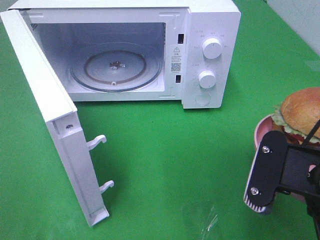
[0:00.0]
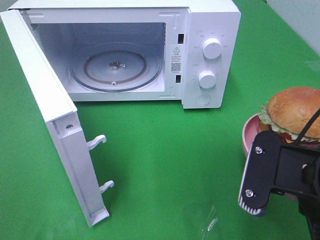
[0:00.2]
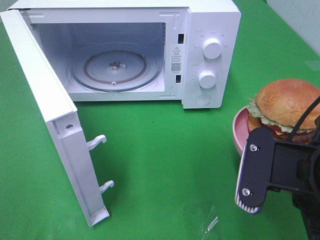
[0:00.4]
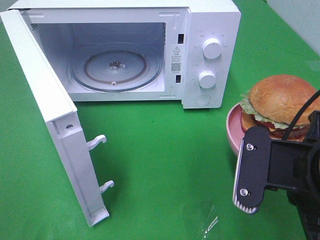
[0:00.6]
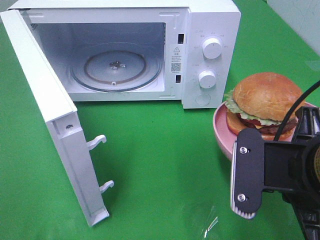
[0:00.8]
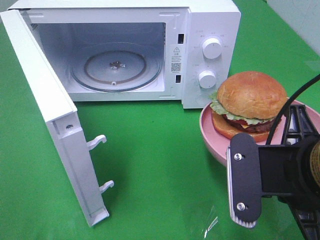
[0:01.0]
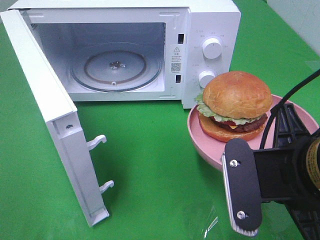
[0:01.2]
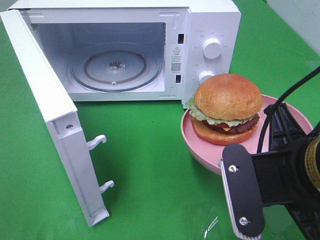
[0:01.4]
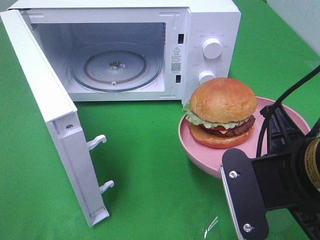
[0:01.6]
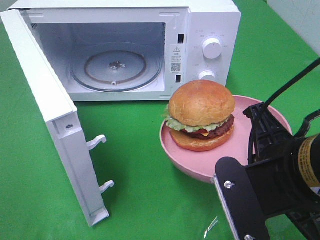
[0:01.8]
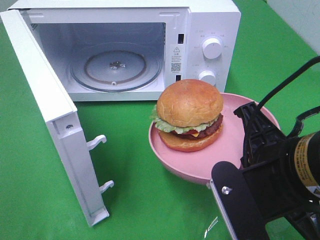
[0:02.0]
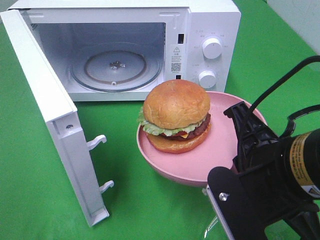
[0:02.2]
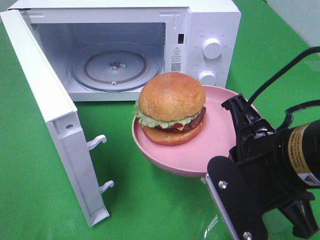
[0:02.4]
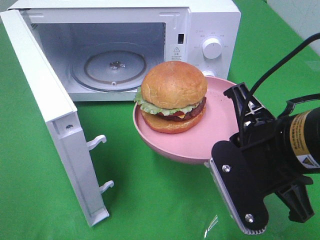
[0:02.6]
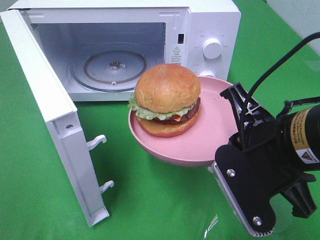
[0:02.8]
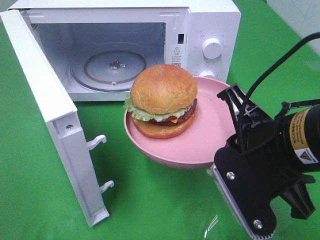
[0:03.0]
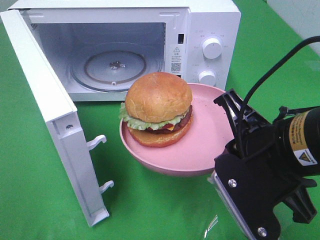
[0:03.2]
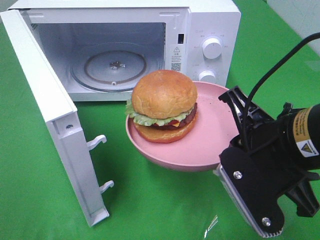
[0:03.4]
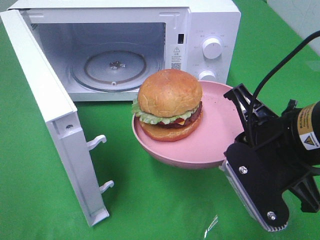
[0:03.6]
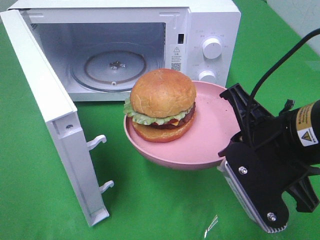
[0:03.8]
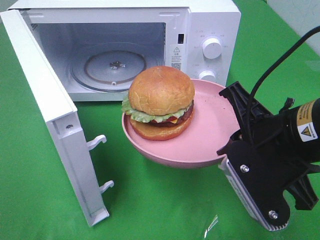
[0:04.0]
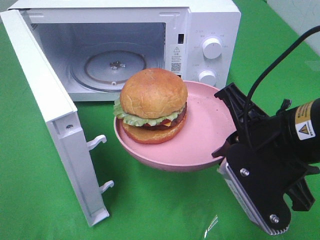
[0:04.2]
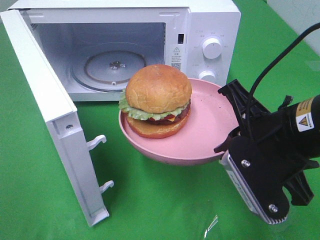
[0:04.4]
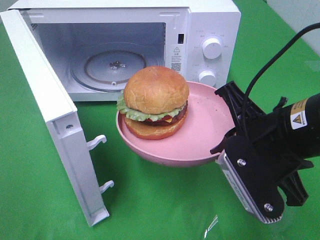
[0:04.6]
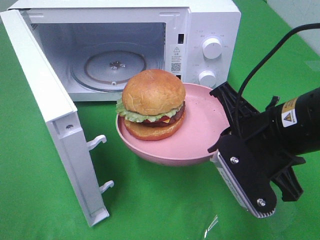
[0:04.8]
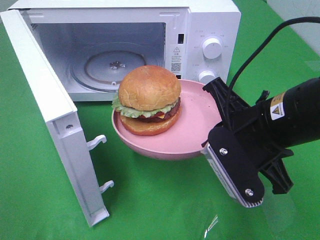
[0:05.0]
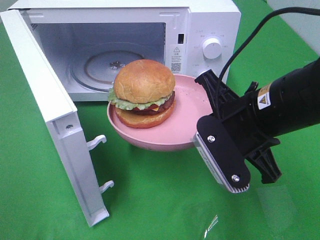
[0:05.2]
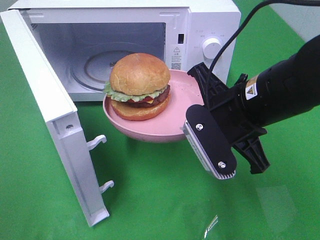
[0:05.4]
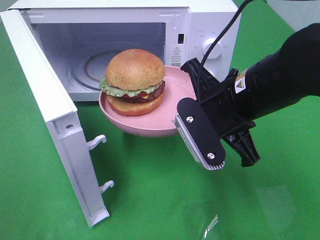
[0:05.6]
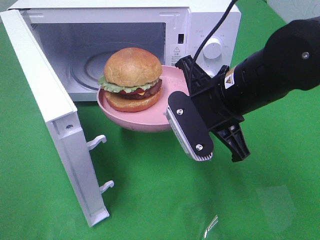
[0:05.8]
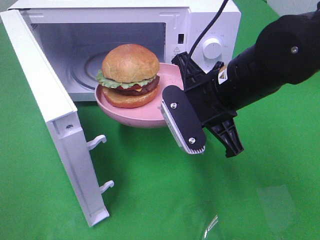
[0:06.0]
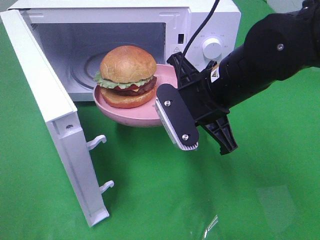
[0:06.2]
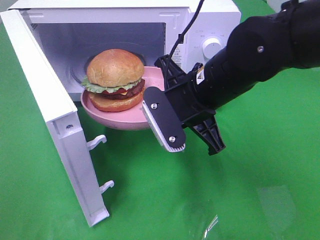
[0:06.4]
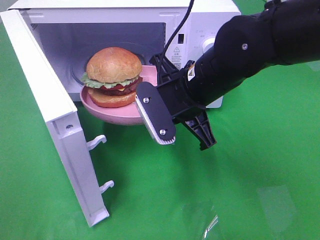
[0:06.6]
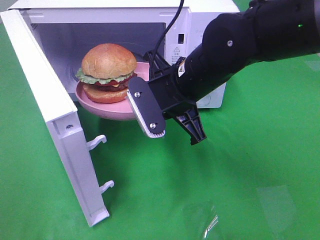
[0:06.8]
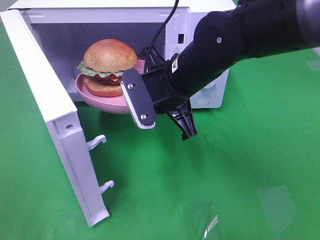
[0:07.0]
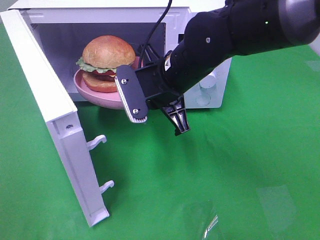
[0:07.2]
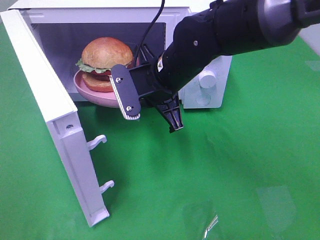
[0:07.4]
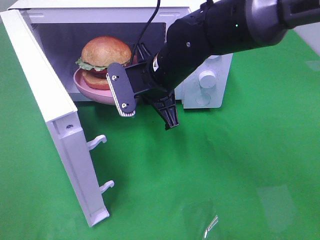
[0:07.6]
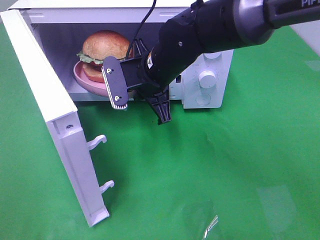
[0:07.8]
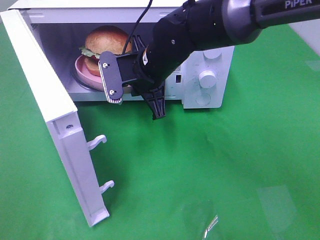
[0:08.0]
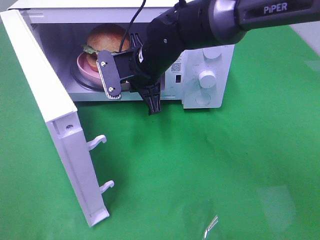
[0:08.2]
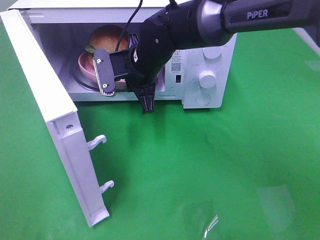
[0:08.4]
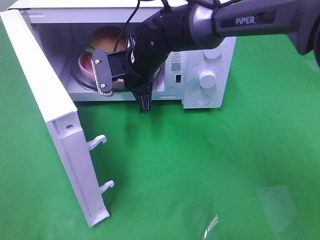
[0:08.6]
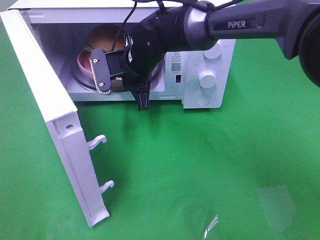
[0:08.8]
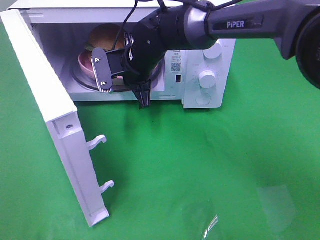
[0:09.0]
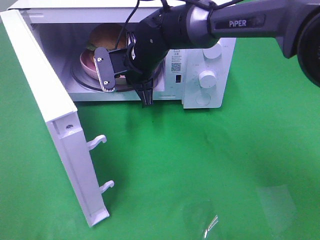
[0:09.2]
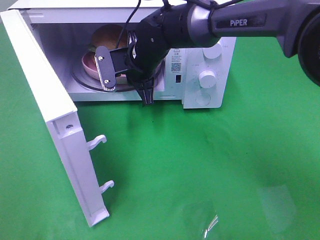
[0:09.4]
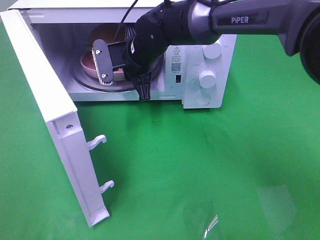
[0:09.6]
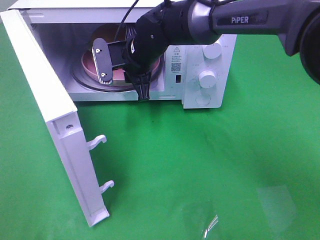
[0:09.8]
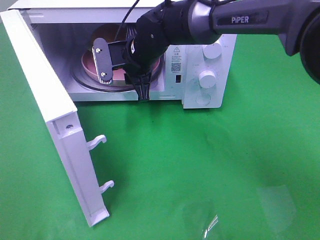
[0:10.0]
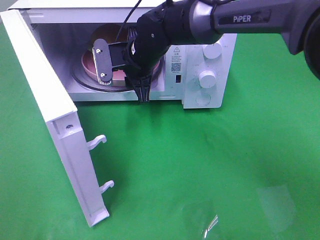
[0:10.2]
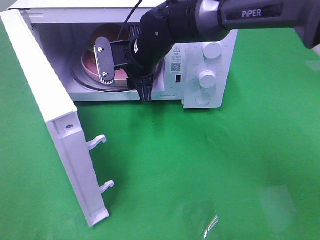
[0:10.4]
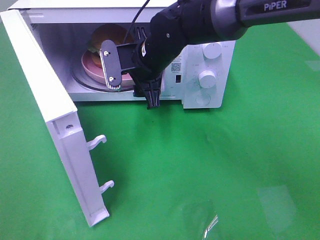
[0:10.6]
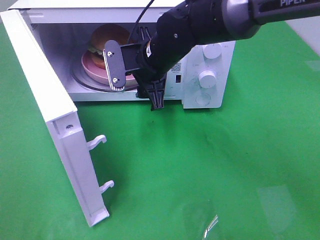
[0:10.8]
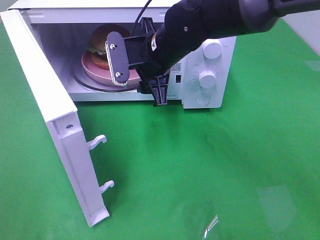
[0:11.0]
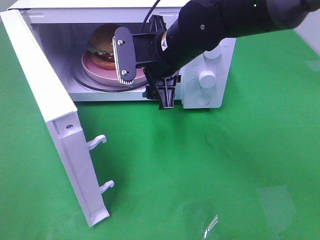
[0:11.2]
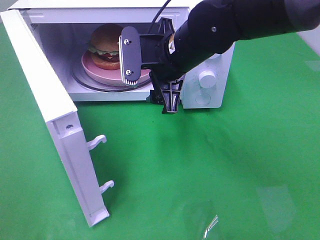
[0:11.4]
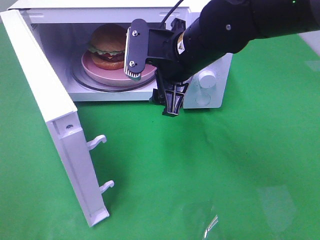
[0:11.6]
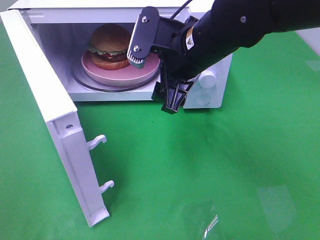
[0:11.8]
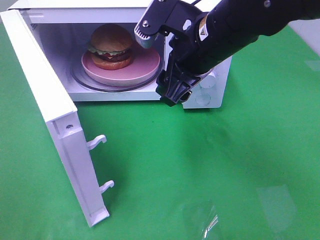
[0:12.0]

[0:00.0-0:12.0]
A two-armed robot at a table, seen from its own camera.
Task of the whole recording: Heat the burger.
Step, 0:00.0 to 0:10.2: Right hand: place the plate in the microwave.
0:03.0 to 0:04.4: The grippers make only small movements.
0:04.4 to 0:06.0: The right gripper moves forward and to the left, approximately 10 cm.
0:06.0 to 0:07.6: The right gripper travels forward and to the left by roughly 10 cm.
0:07.6 to 0:09.0: The right gripper moves forward, approximately 5 cm.
0:09.0 to 0:10.4: The right gripper opens up.
0:10.4 to 0:12.0: The right gripper goes some 15 cm backward, to the right and upward.

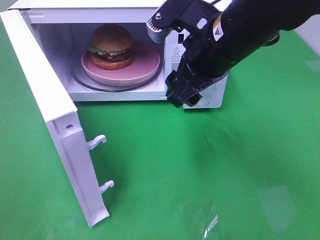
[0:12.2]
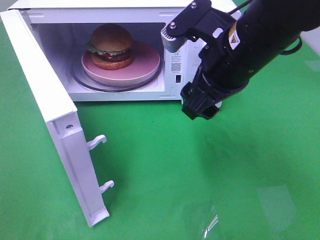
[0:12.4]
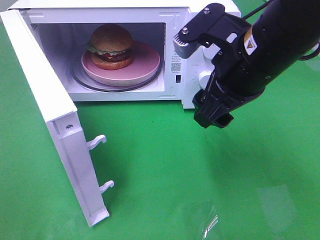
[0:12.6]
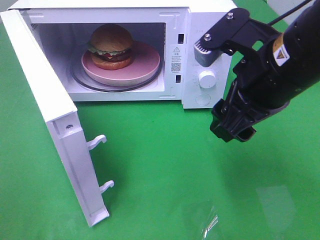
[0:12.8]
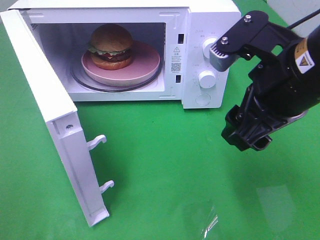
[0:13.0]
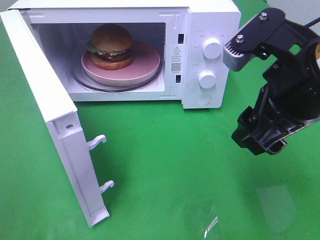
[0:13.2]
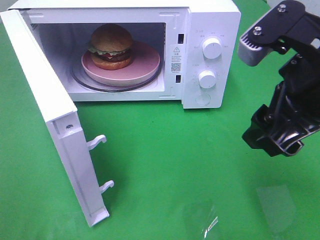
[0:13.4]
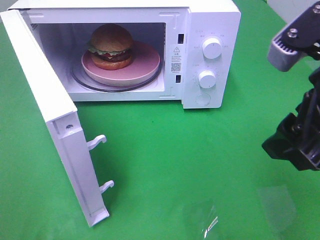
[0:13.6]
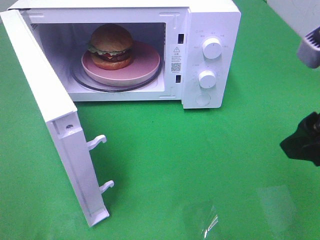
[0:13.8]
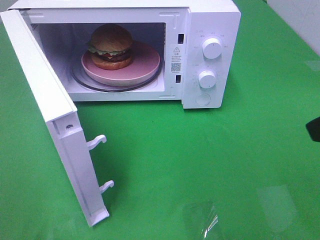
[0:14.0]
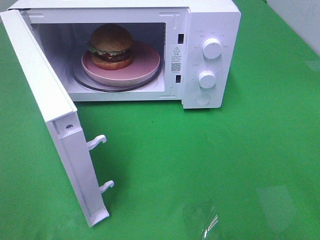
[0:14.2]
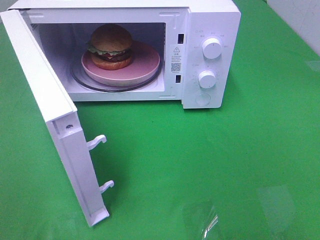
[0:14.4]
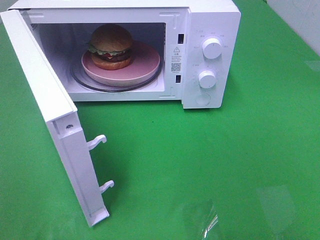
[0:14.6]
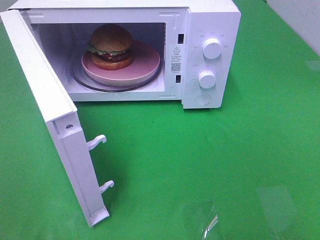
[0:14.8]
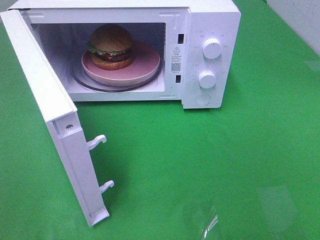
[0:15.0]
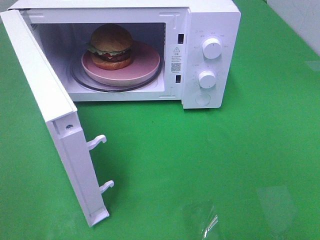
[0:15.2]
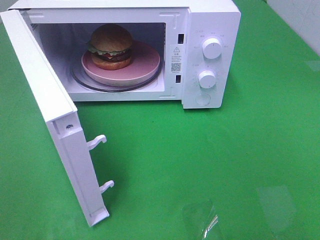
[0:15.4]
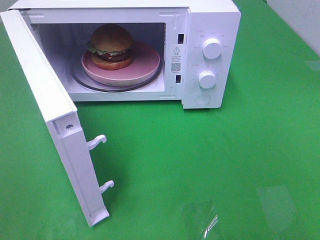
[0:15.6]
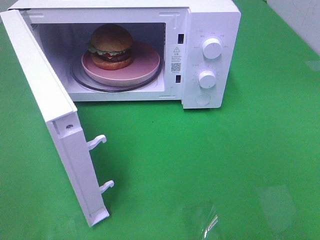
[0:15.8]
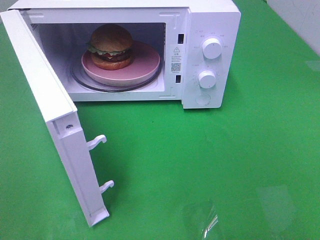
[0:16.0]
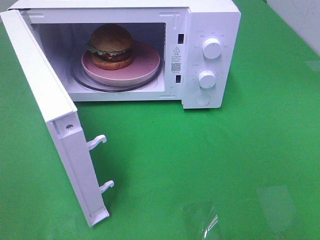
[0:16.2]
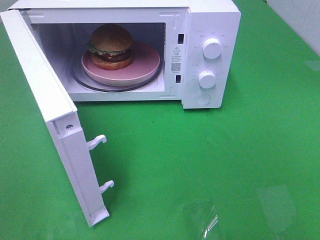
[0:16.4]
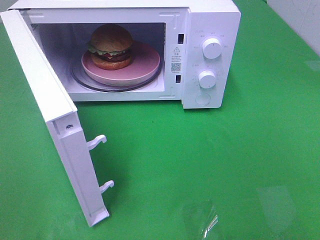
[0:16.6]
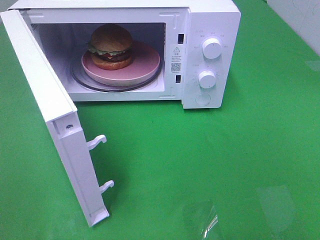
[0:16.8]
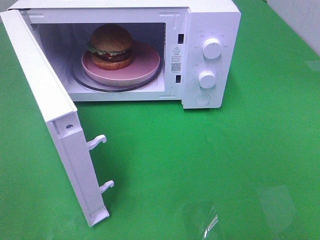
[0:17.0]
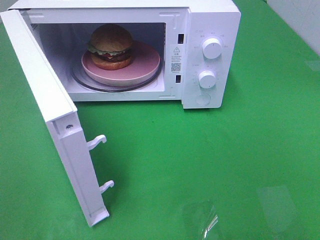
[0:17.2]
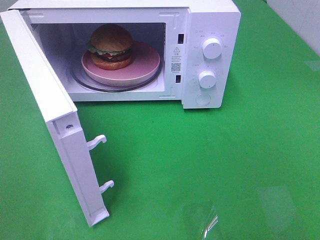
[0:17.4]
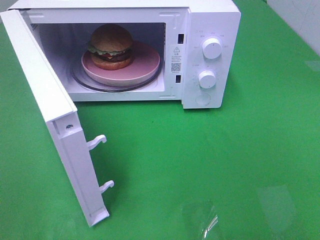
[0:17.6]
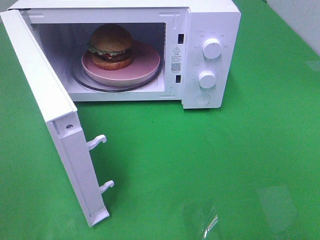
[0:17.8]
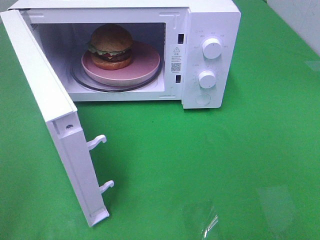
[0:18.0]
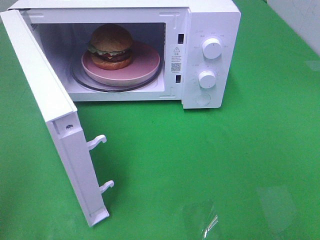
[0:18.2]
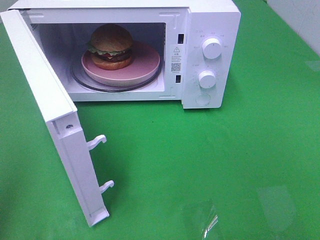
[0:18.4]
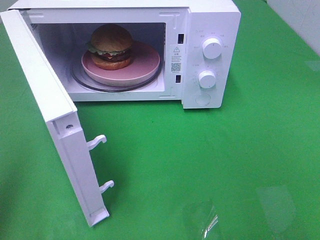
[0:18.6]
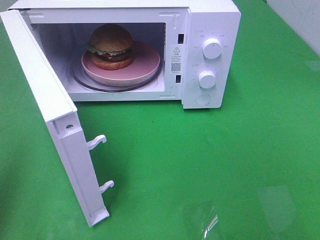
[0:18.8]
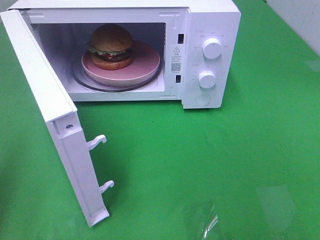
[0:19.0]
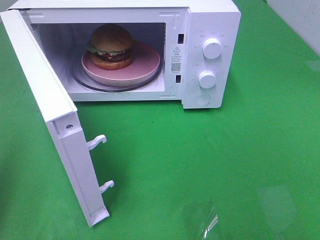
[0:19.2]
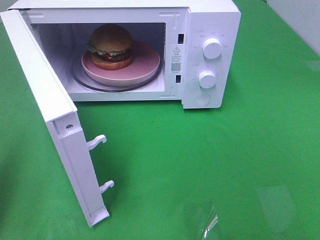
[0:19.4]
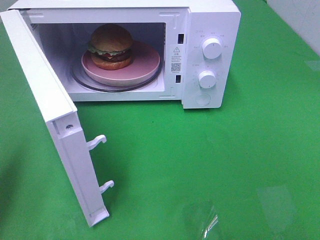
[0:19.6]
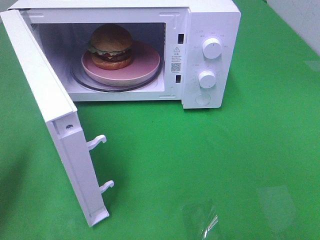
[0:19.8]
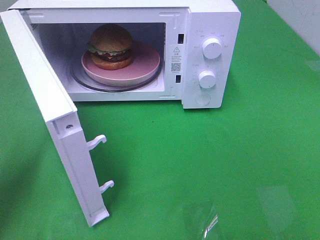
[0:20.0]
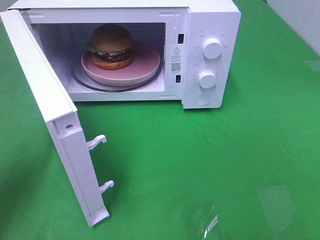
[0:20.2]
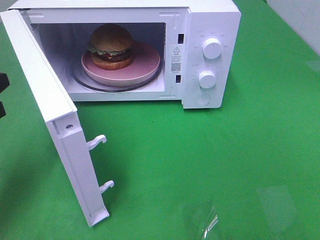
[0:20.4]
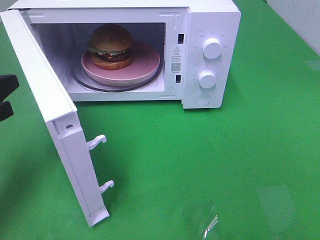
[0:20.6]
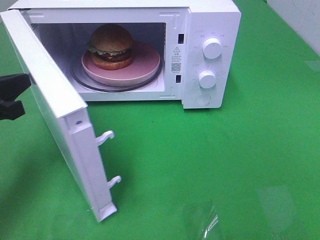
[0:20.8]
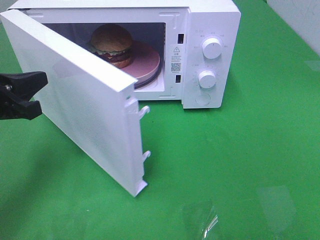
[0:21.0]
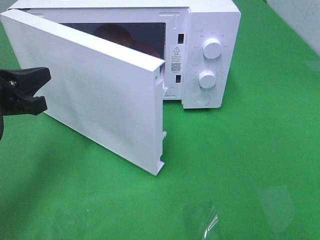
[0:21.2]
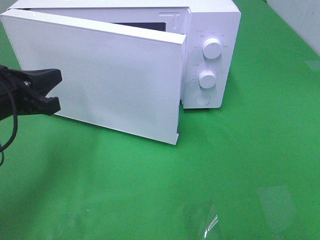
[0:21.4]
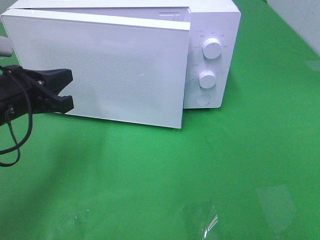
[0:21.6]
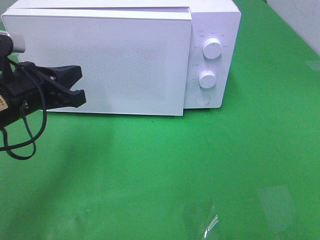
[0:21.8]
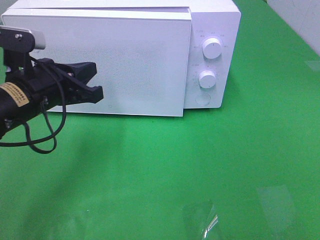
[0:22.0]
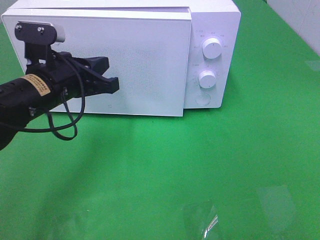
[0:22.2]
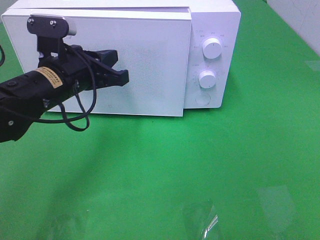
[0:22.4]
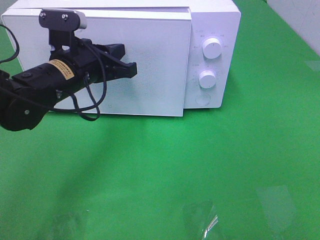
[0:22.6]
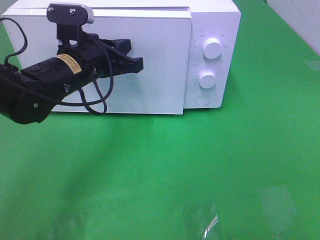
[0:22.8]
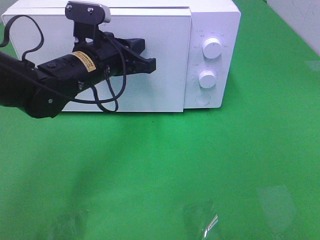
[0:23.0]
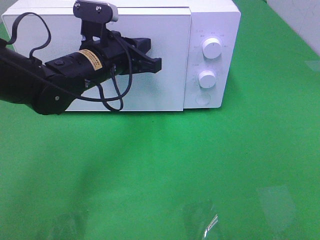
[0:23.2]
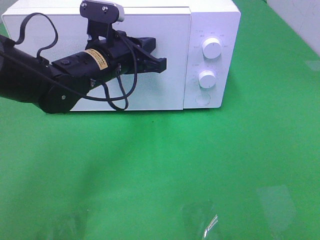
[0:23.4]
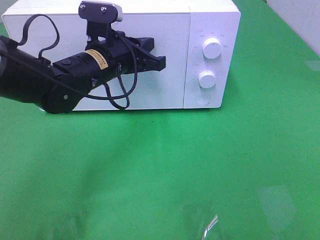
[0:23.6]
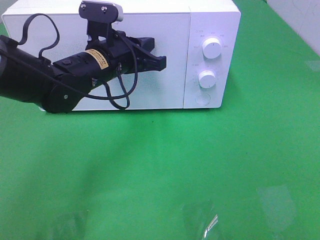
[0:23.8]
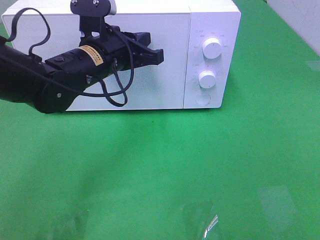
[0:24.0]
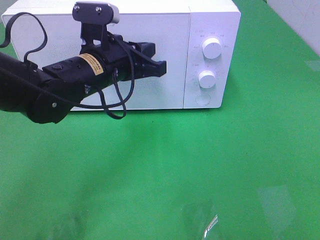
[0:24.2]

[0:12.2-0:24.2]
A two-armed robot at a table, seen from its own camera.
Task of the whole recording: Heat the burger.
0:12.2 to 0:13.8: The right gripper heads to the right and backward, covering about 20 cm.
0:13.8 to 0:15.2: The right gripper goes roughly 15 cm backward and to the right.
0:18.2 to 0:19.8: The left gripper travels forward and downward by some 15 cm.
0:19.8 to 0:21.2: The left gripper heads to the right and forward, covering roughly 10 cm.
0:21.2 to 0:22.6: The left gripper goes about 15 cm to the right and forward.
0:22.6 to 0:24.2: The grippers stay close to where they were, moving slightly.
